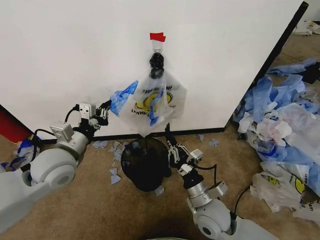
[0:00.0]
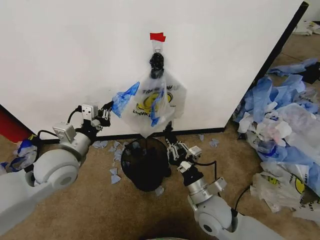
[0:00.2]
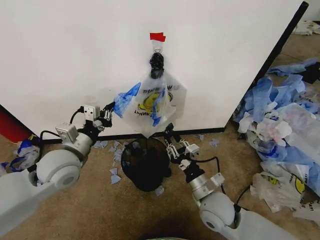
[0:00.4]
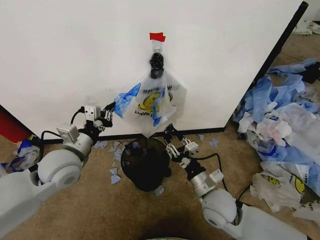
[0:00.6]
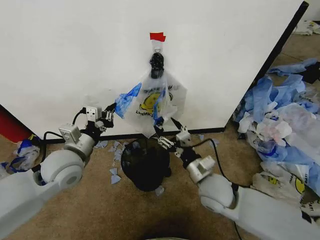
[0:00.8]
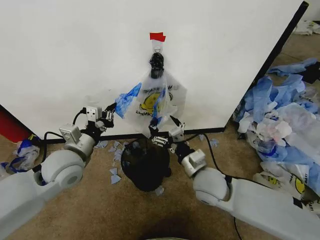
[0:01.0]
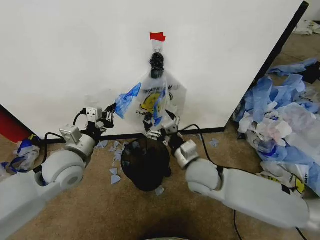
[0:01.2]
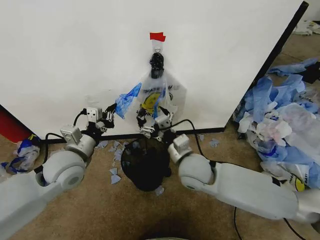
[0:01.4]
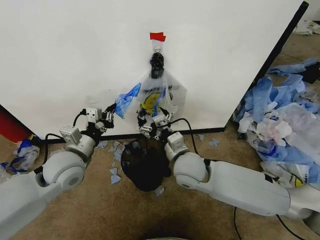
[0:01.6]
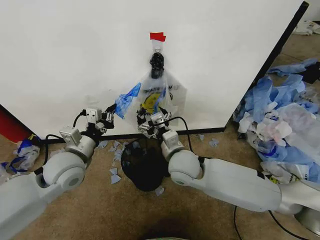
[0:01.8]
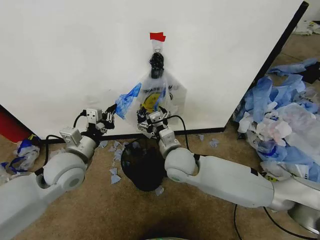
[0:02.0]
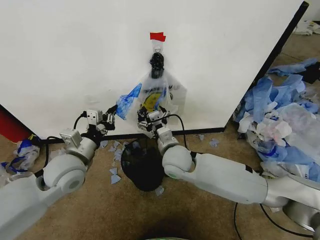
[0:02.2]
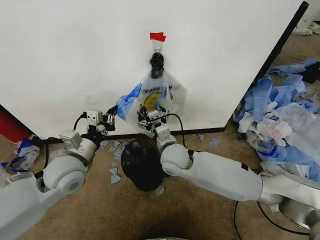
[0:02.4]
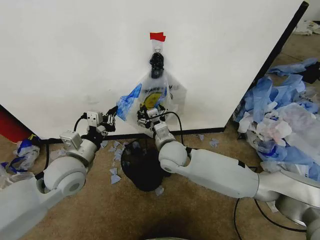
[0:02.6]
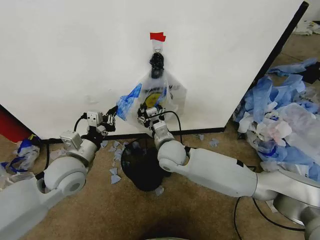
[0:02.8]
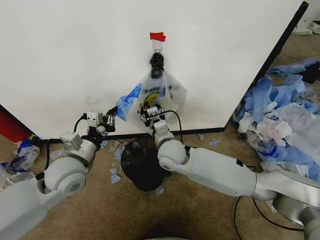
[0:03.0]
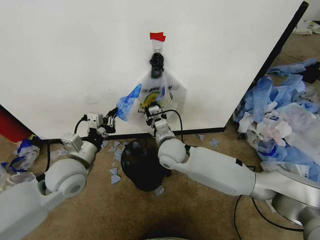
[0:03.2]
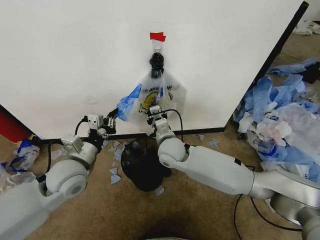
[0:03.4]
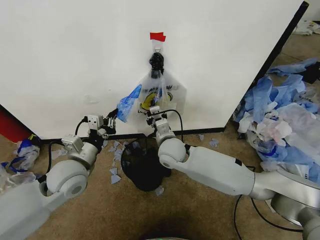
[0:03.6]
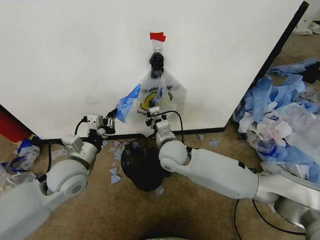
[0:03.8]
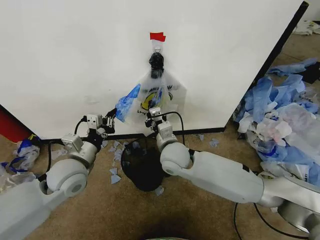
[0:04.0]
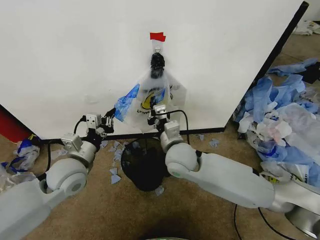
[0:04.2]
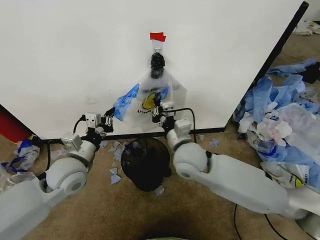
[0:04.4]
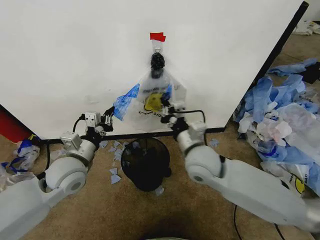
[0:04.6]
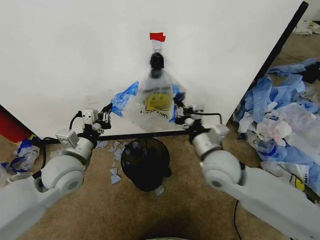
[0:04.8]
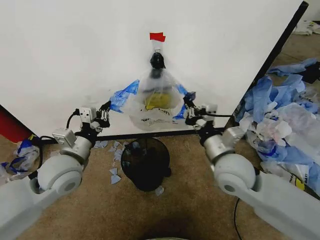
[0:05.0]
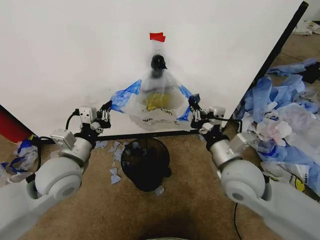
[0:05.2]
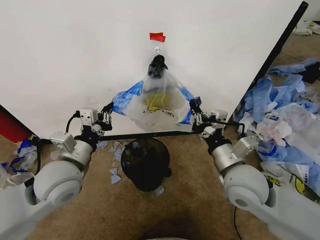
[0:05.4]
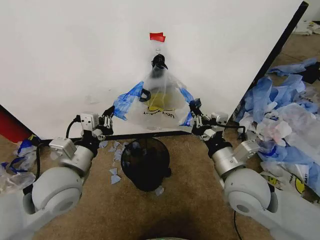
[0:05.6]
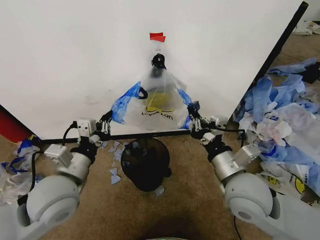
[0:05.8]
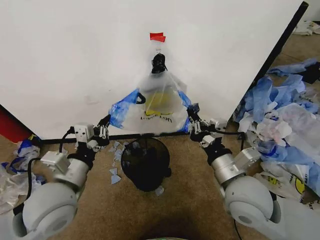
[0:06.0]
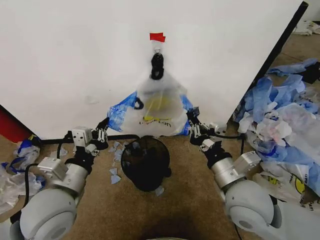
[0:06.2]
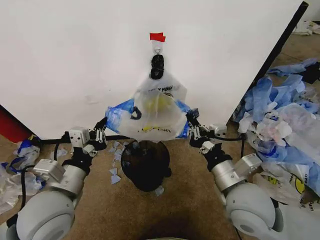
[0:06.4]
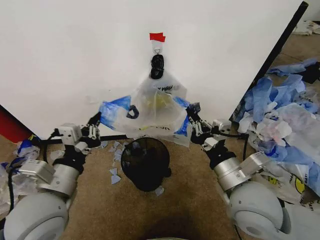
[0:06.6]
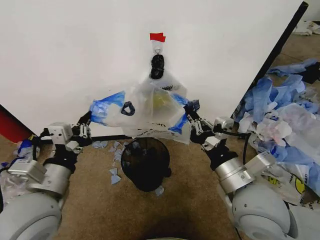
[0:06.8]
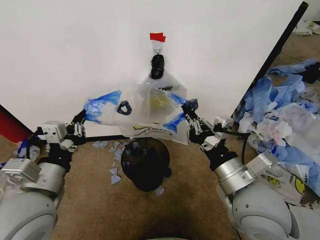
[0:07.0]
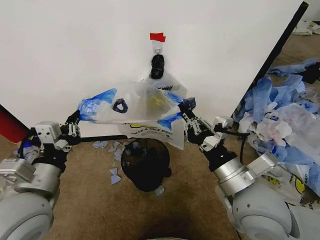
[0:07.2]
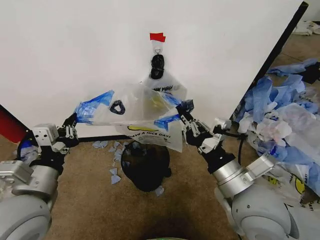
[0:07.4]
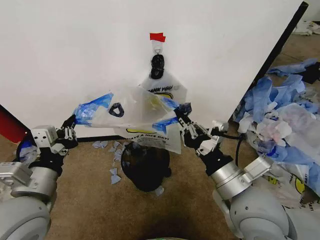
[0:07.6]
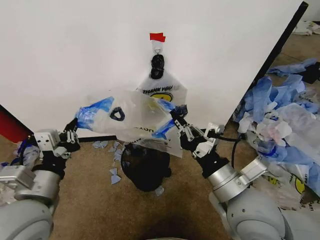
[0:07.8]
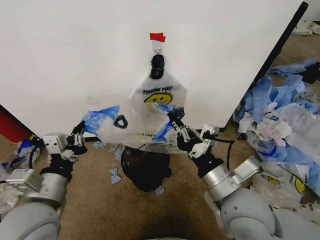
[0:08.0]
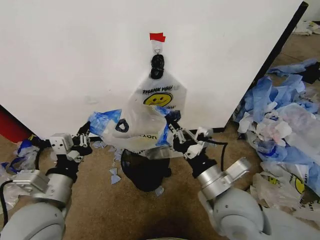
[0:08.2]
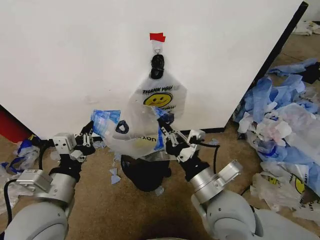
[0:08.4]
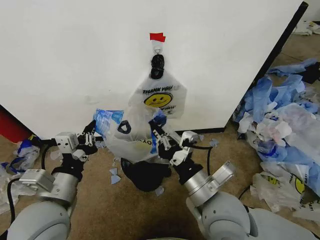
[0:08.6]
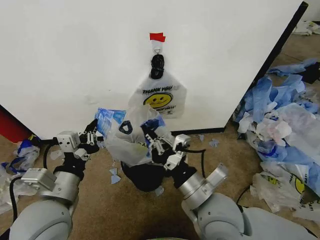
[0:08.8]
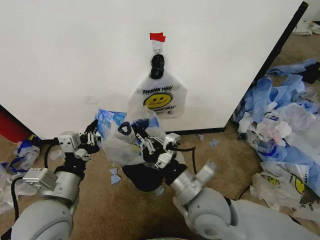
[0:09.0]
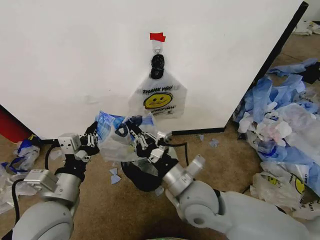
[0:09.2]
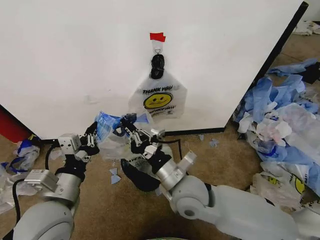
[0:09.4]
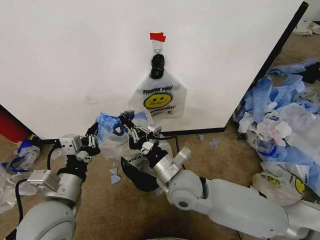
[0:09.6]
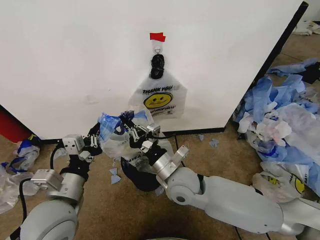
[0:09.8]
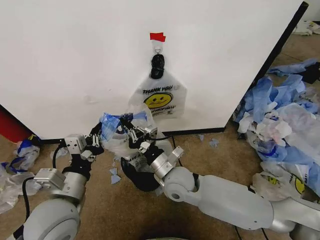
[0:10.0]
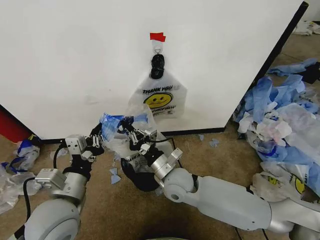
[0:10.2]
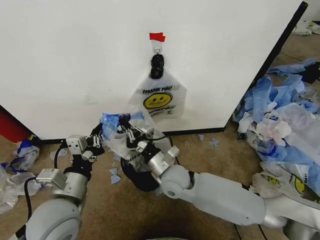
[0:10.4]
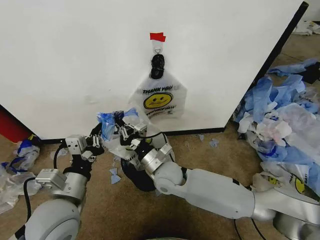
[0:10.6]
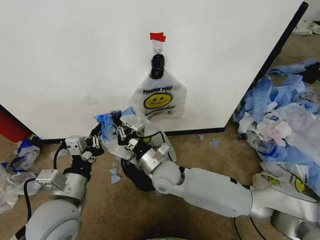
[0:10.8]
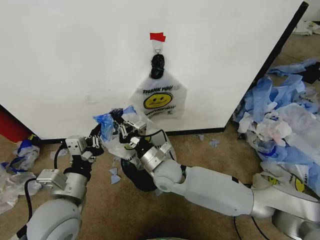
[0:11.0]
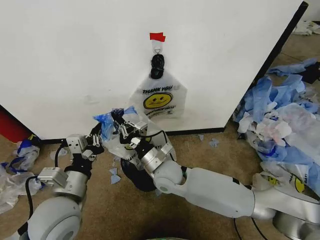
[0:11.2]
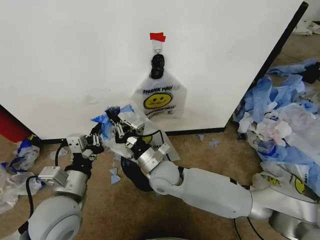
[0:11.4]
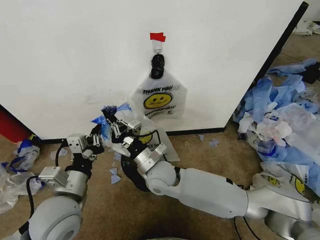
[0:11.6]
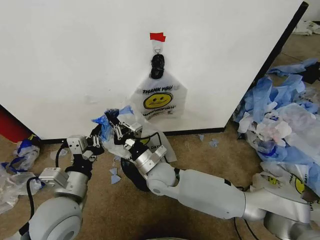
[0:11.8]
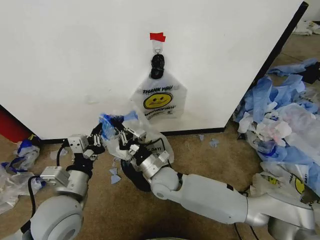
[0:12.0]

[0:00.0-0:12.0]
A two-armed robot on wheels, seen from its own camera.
Task of the whole recording: Pick up the garbage bag from the wall and place it over the trash bin.
0:00.0 to 0:01.6: The right gripper goes about 15 cm forward, upward and to the left, and opens.
0:01.6 to 0:03.0: The right gripper travels forward by approximately 5 cm, and closes up.
0:03.0 to 0:04.4: The right gripper shifts some 10 cm backward and upward, and closes.
0:04.4 to 0:06.0: The right gripper is displaced backward and to the right by about 15 cm; the left gripper is displaced backward by roughly 10 cm.
0:06.0 to 0:07.6: The left gripper shifts by approximately 5 cm.
0:07.6 to 0:09.0: The right gripper is displaced to the left and downward by some 10 cm.
0:09.0 to 0:10.4: The right gripper shifts some 15 cm forward, downward and to the left.
0:10.4 to 0:12.0: There are only small adjustments of the grippers.

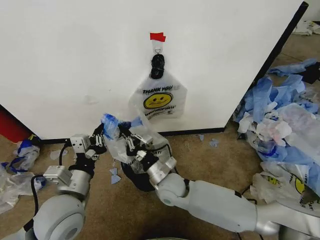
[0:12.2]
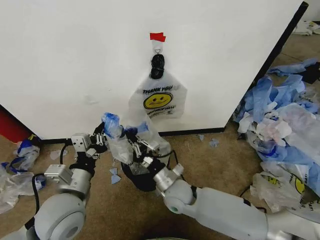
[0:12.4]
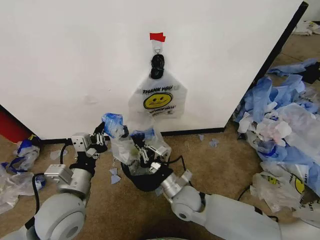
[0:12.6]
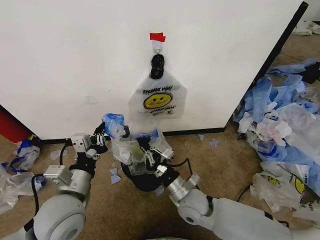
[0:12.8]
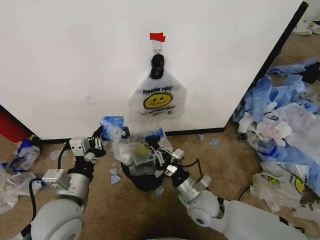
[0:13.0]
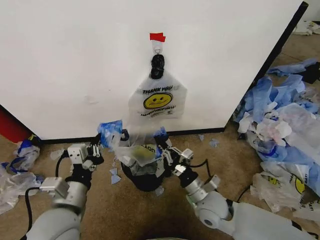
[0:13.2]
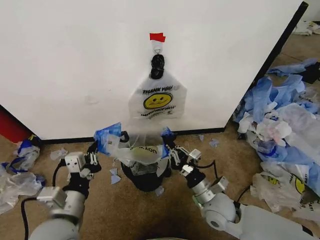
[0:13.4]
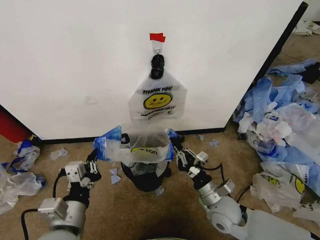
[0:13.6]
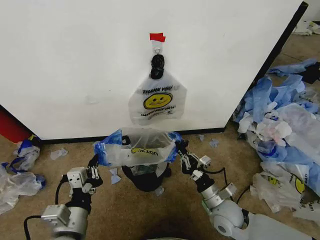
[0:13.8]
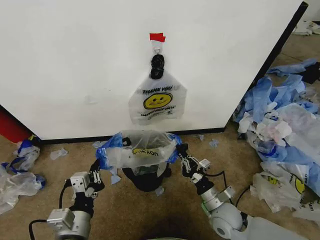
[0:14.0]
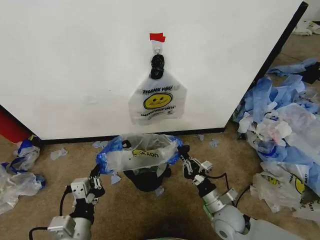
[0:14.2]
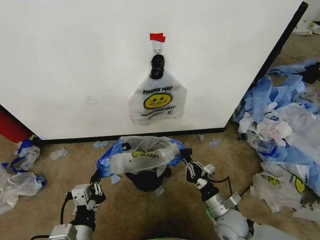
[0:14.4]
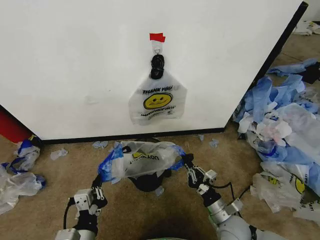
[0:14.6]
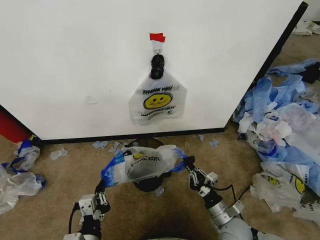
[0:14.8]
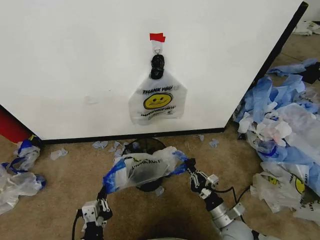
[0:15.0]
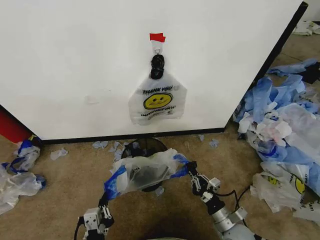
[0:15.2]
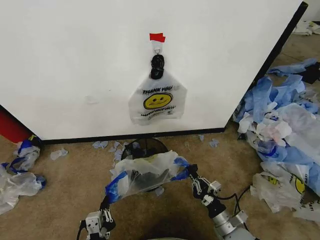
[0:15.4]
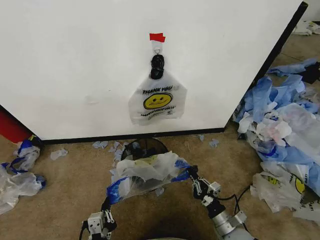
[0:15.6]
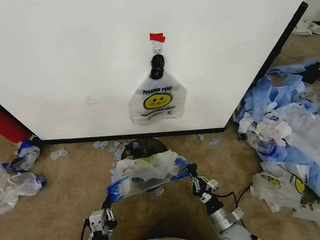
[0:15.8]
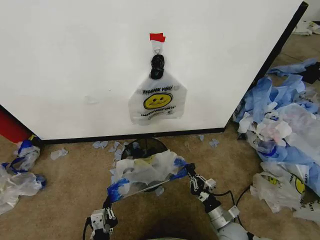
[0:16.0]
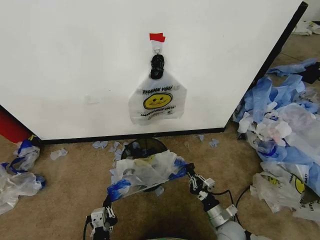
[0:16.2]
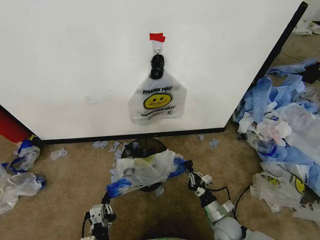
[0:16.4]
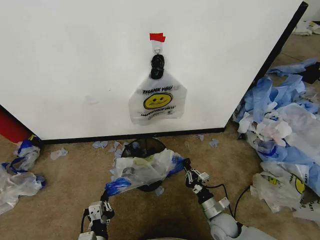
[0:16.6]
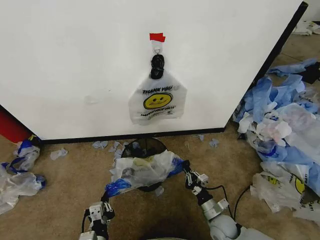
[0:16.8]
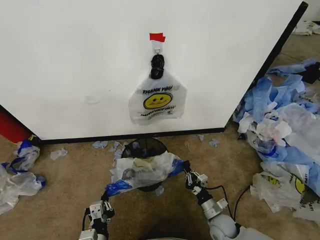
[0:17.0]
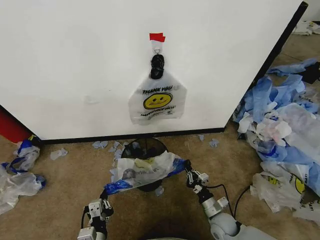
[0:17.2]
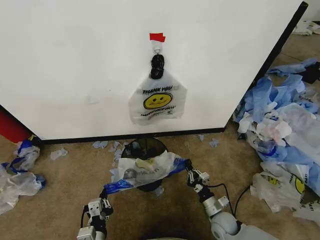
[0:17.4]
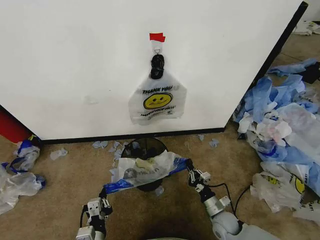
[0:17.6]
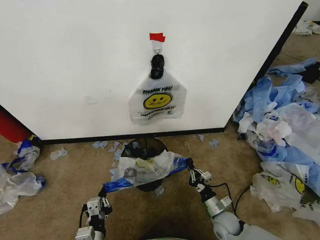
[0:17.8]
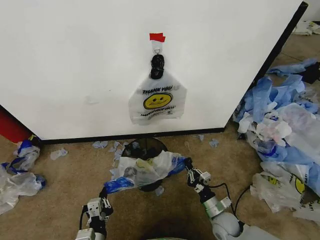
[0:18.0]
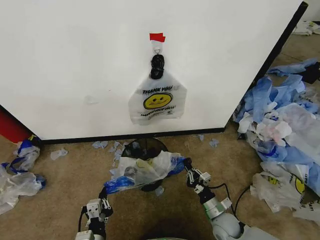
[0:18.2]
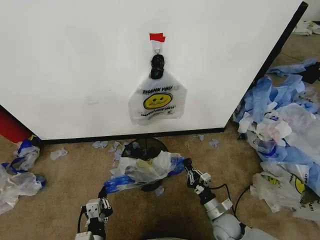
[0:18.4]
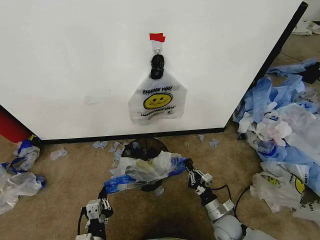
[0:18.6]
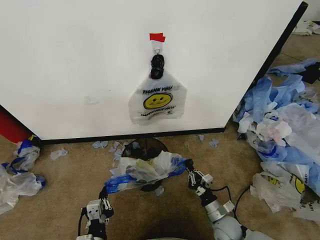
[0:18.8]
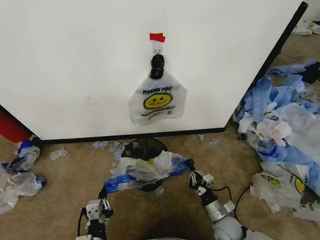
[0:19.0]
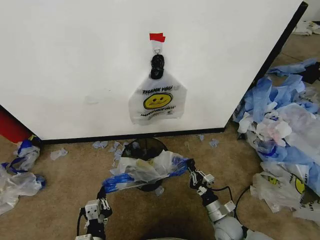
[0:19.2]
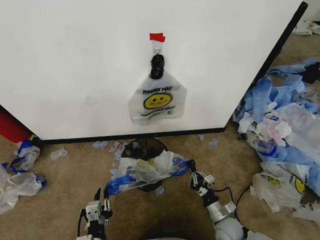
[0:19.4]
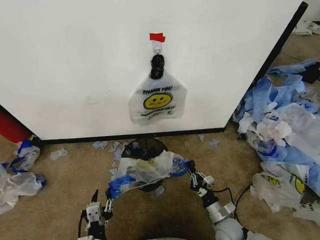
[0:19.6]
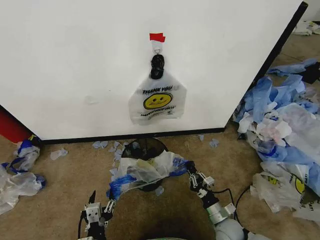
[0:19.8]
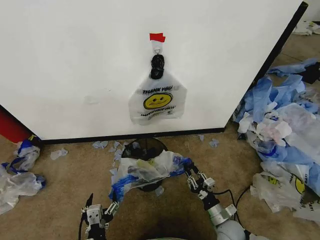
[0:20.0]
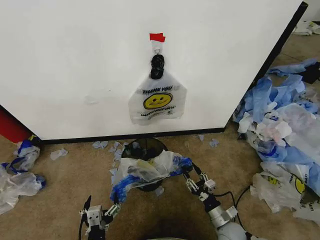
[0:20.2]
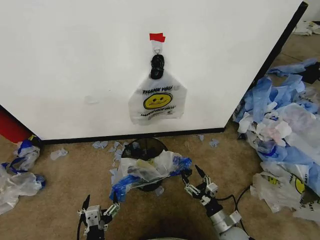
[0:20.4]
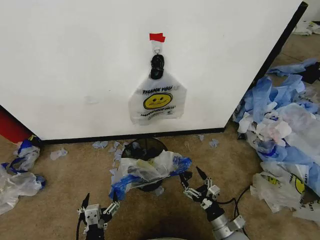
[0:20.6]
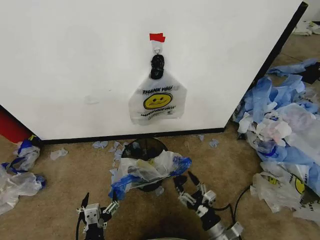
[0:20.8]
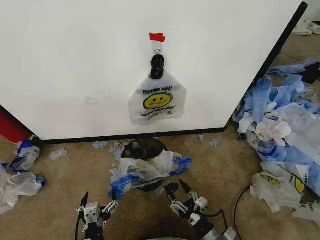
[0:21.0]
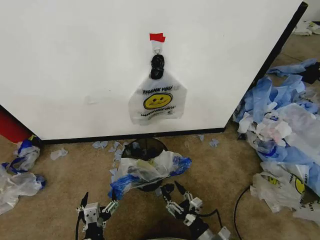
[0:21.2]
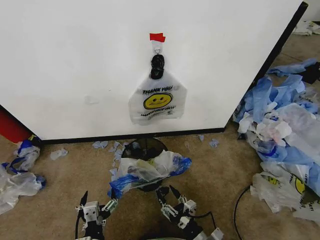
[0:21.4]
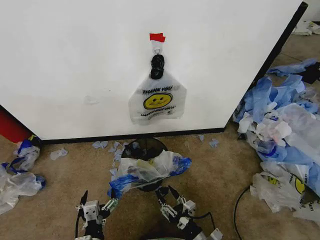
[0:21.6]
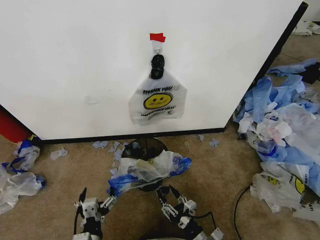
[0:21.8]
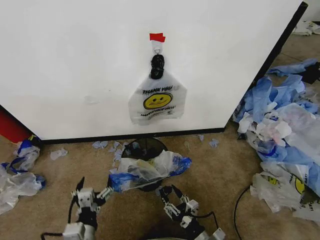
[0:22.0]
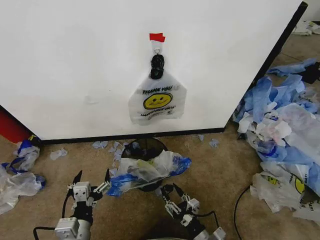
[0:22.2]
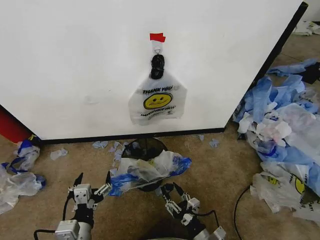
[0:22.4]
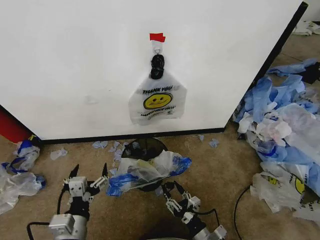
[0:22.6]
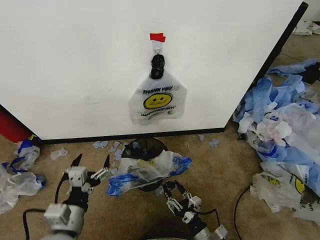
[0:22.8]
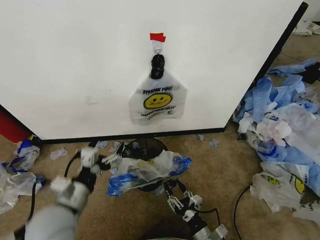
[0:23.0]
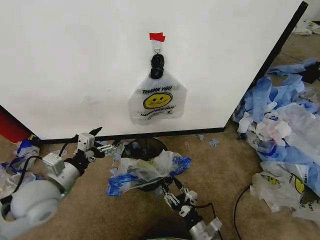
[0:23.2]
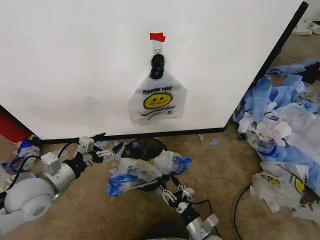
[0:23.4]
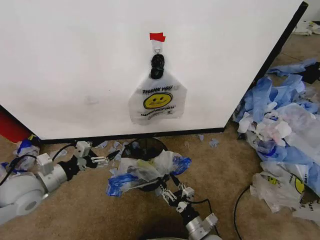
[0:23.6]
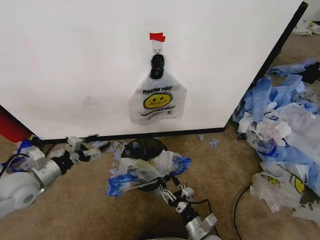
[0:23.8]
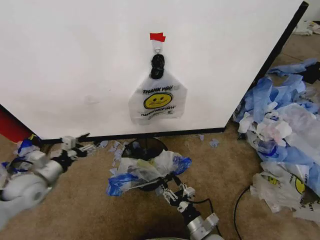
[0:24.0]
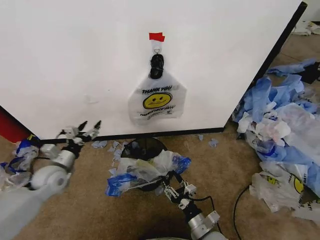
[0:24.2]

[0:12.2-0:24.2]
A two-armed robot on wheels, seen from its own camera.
Task of the whole recording: Pick up the garbage bag from the wall and place it over the trash bin.
0:12.2 to 0:13.8: The right gripper heads to the right and backward, covering roughly 20 cm. The left gripper shifts roughly 5 cm backward.
0:13.8 to 0:15.2: The two grippers go approximately 10 cm downward and backward.
0:15.2 to 0:16.6: The left gripper shifts by approximately 5 cm. Meanwhile the right gripper travels downward by about 5 cm.
0:16.6 to 0:18.2: The grippers make only small movements.
0:18.2 to 0:19.8: The left gripper opens up.
0:19.8 to 0:21.2: The right gripper heads backward and to the left, covering roughly 10 cm, and opens.
0:21.2 to 0:22.6: The left gripper shifts roughly 5 cm upward.
0:22.6 to 0:24.2: The left gripper moves forward and to the left, about 25 cm.
